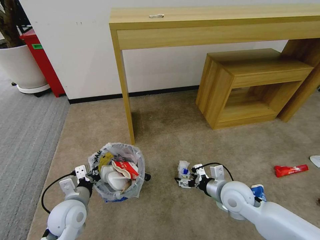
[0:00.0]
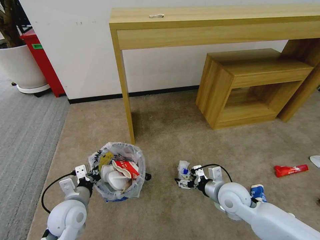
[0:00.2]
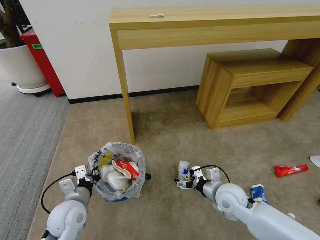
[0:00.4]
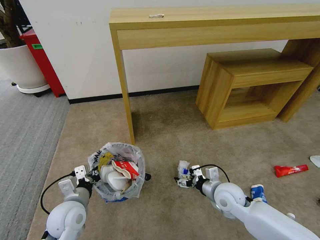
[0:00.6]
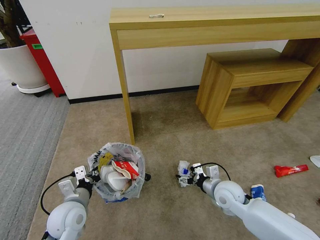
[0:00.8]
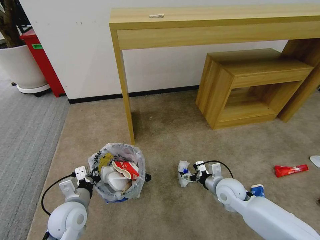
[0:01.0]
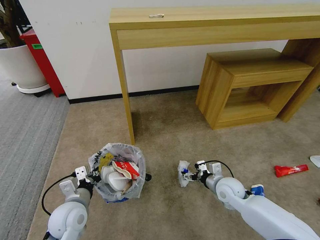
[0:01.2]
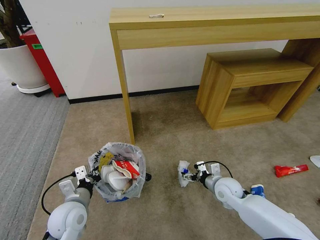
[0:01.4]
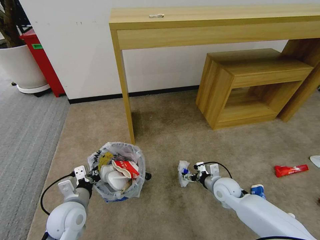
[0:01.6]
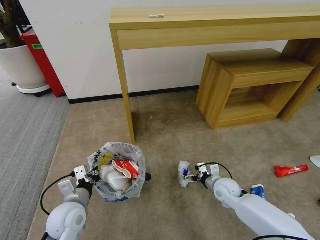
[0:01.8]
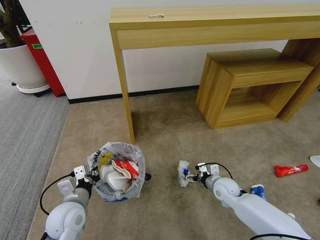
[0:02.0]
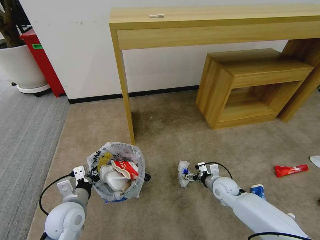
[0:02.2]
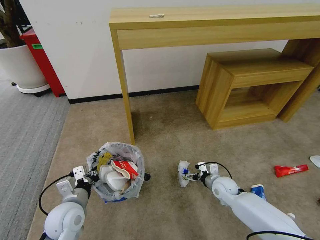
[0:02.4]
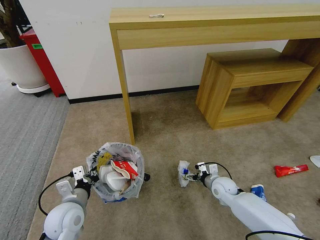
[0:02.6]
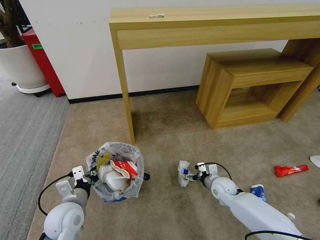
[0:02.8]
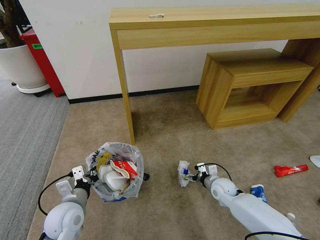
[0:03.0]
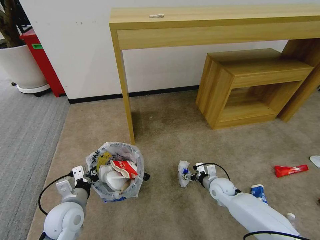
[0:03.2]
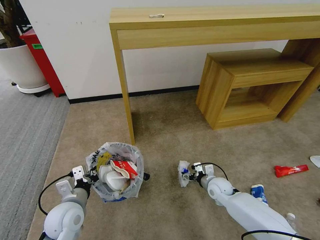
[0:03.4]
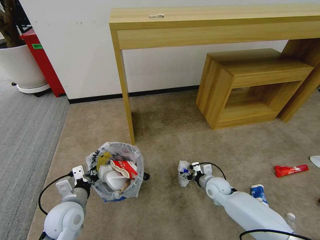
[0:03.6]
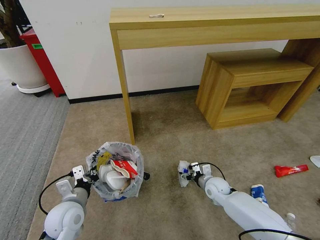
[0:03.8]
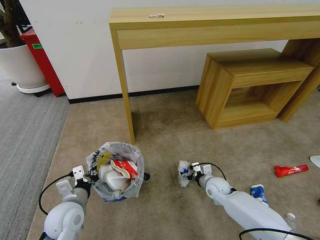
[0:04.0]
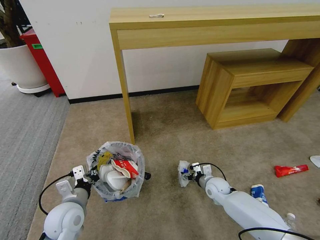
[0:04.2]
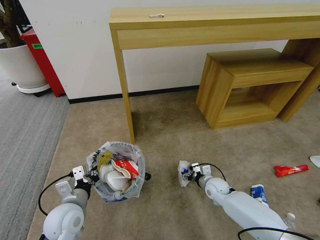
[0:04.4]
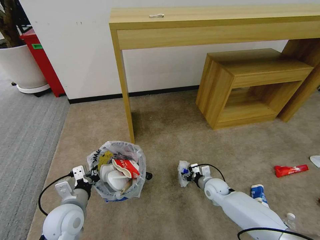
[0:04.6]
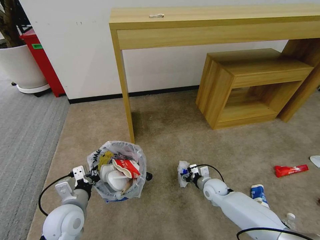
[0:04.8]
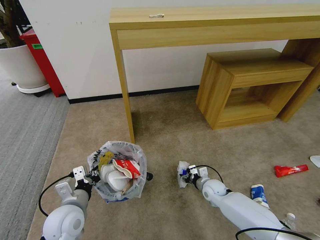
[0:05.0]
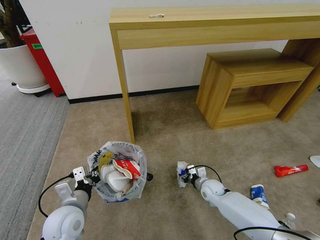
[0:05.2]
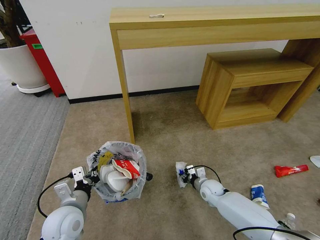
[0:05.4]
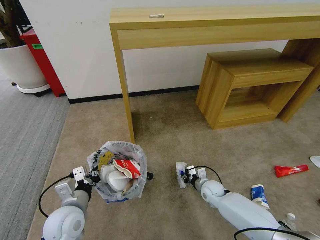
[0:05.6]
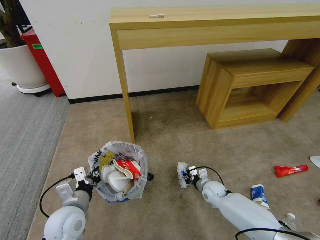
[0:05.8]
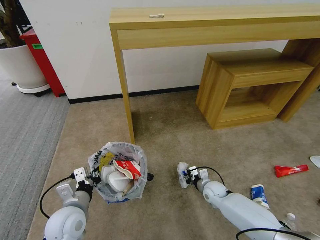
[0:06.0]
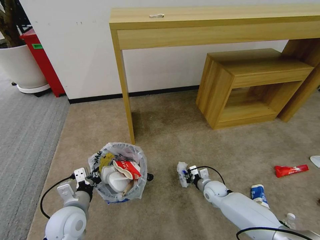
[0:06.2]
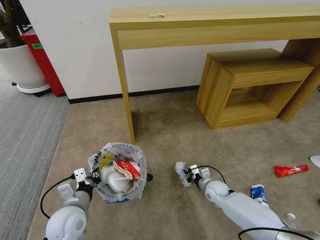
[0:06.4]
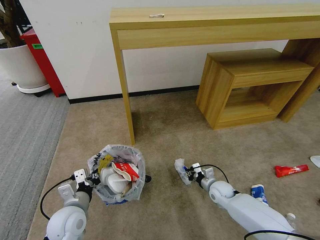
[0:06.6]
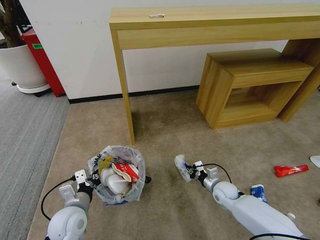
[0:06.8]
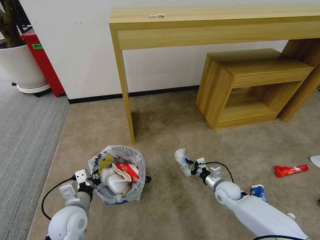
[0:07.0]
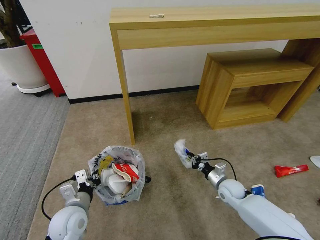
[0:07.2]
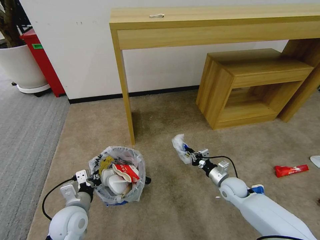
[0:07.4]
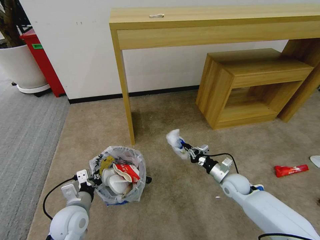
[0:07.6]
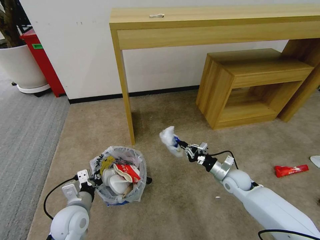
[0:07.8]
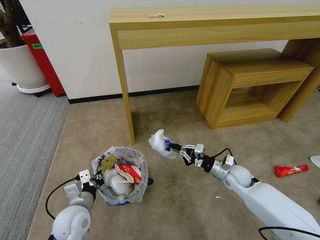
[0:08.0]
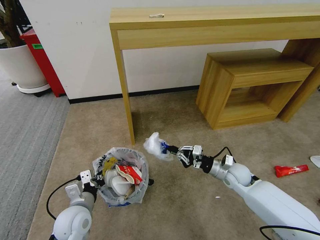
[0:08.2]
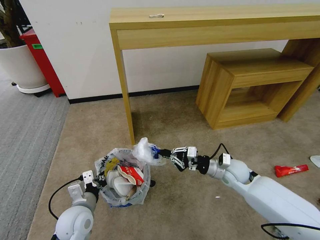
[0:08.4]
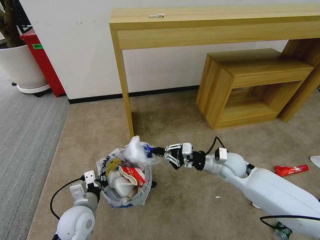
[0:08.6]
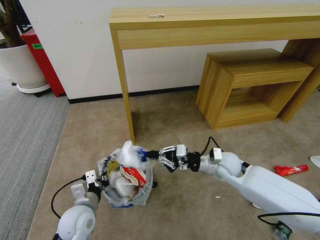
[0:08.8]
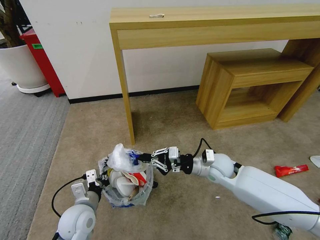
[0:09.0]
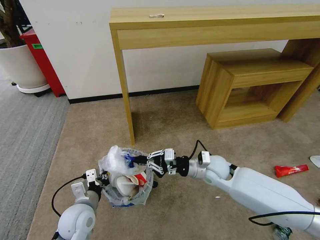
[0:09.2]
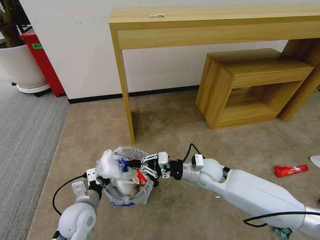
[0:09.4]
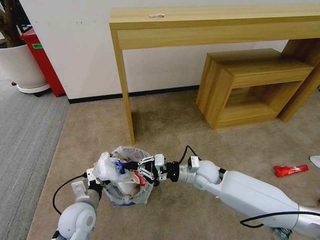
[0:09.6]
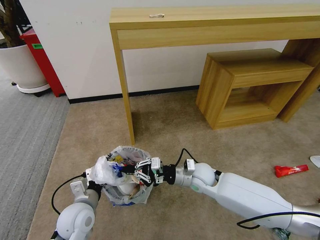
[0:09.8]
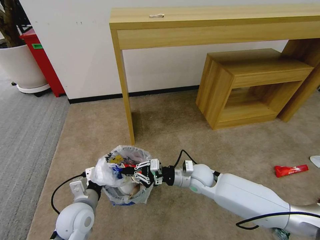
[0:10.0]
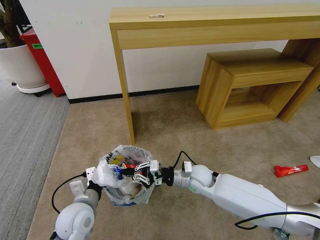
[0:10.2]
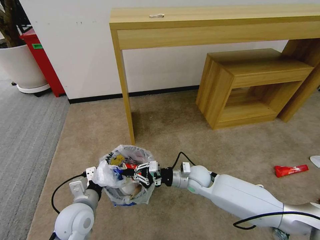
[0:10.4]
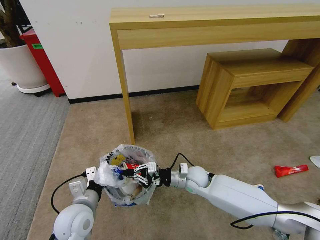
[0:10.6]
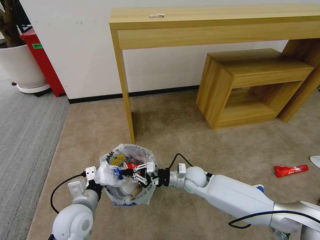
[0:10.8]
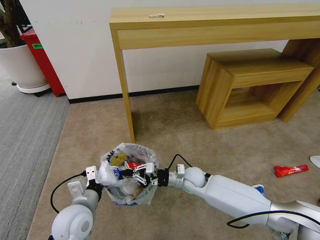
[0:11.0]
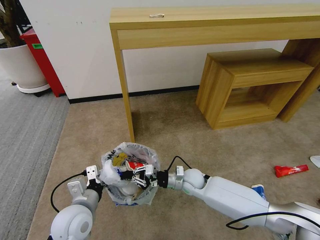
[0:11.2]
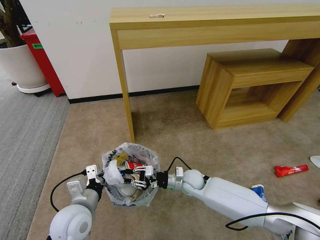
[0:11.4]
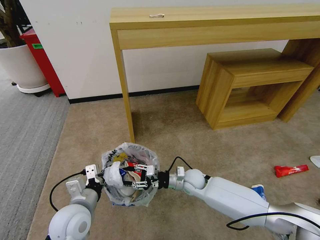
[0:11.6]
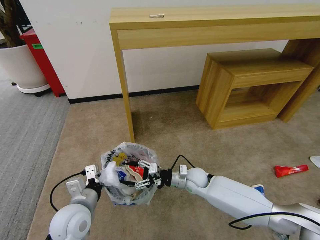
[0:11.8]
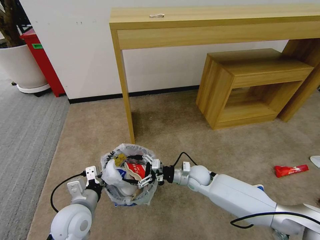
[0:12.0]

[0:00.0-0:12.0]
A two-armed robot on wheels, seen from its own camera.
Task of the whole recording: Pick up the trash bin and place the garbage on the floor into it.
0:00.0 to 0:01.6: The right gripper is displaced downward and forward by some 10 cm.
0:01.6 to 0:03.0: The grippers stay close to where they were, moving slightly.
0:03.0 to 0:04.4: The grippers make only small movements.
0:04.4 to 0:06.0: The right gripper closes up.
0:06.0 to 0:07.6: The right gripper shifts roughly 10 cm upward and to the right.
0:07.6 to 0:09.0: The right gripper heads upward and to the left, covering approximately 15 cm.
0:09.0 to 0:10.4: The right gripper travels downward and to the left by approximately 10 cm.
0:10.4 to 0:12.0: The right gripper opens up.

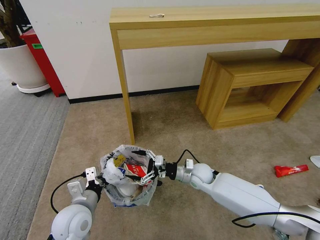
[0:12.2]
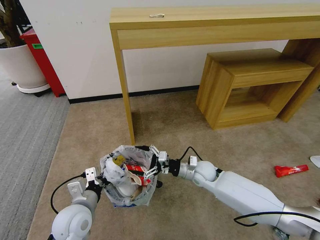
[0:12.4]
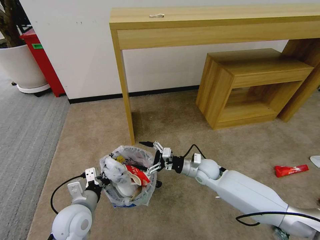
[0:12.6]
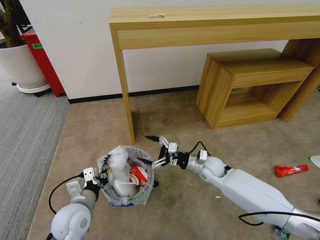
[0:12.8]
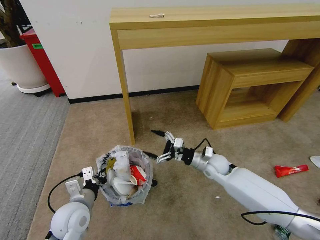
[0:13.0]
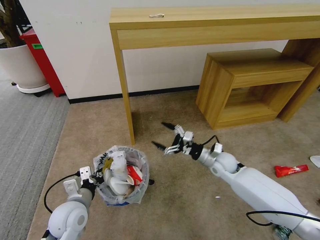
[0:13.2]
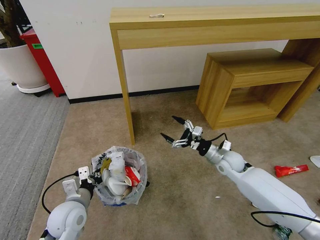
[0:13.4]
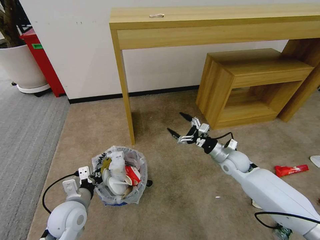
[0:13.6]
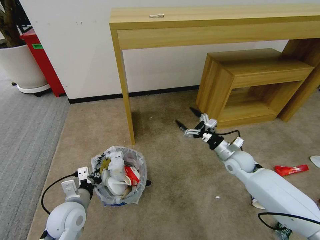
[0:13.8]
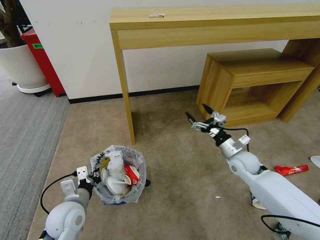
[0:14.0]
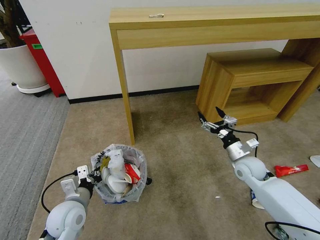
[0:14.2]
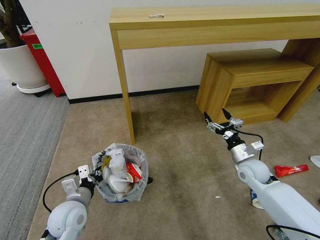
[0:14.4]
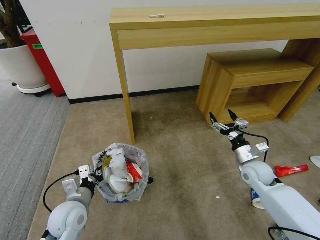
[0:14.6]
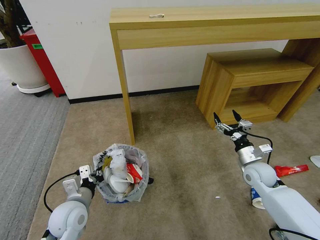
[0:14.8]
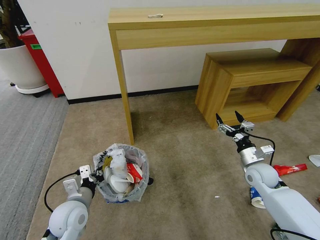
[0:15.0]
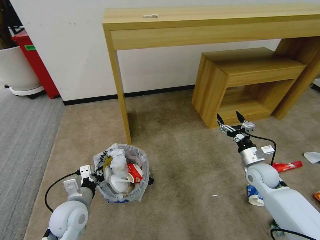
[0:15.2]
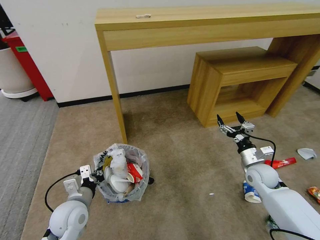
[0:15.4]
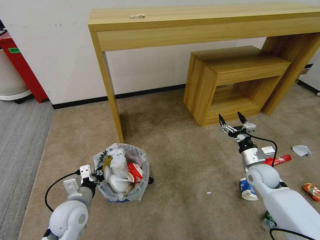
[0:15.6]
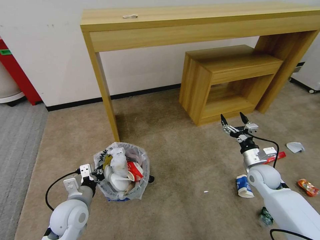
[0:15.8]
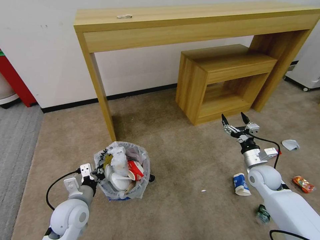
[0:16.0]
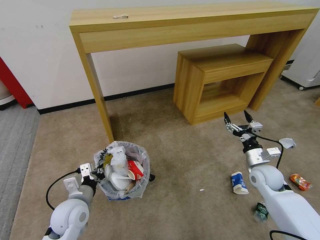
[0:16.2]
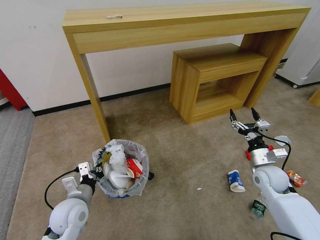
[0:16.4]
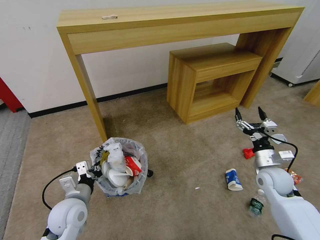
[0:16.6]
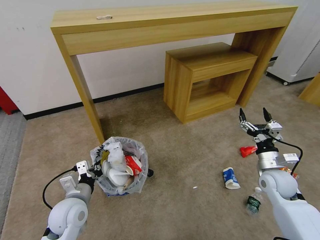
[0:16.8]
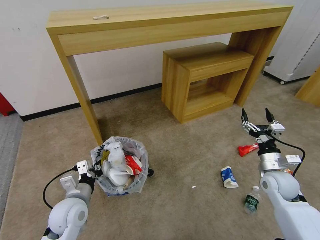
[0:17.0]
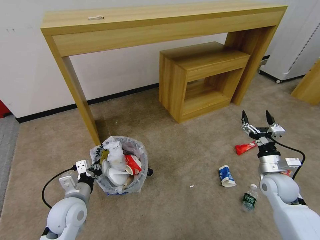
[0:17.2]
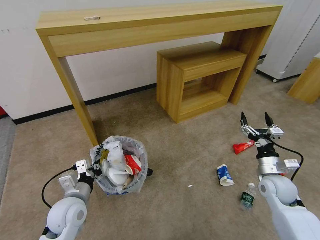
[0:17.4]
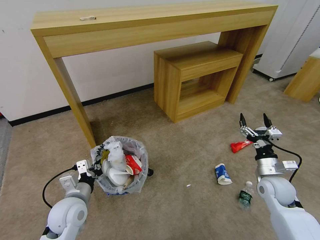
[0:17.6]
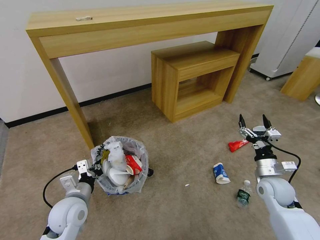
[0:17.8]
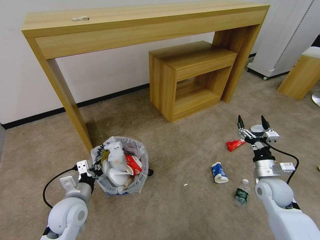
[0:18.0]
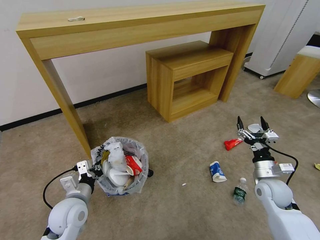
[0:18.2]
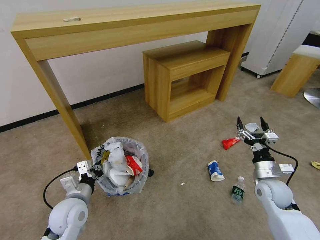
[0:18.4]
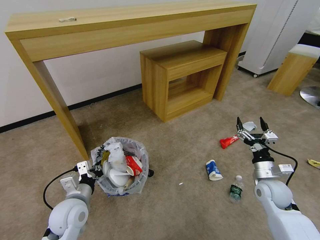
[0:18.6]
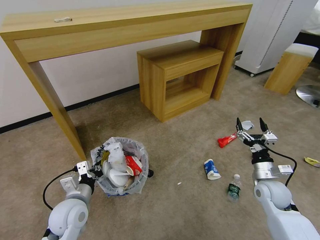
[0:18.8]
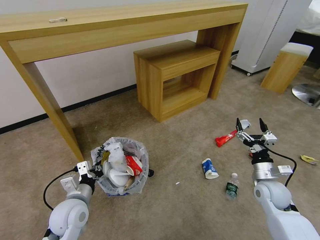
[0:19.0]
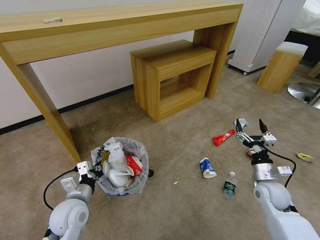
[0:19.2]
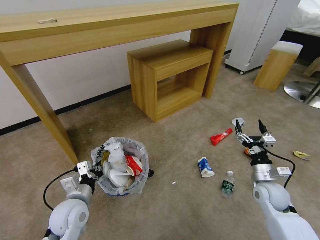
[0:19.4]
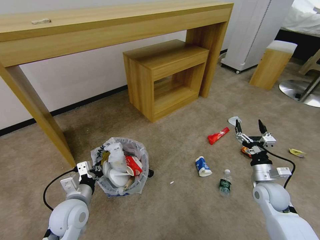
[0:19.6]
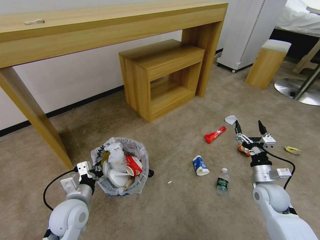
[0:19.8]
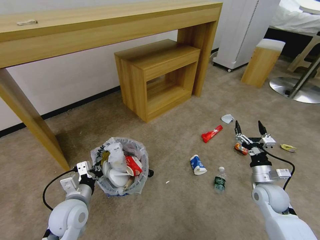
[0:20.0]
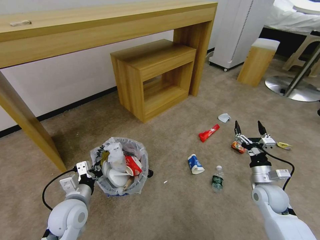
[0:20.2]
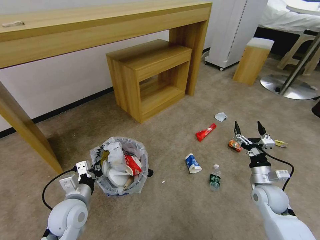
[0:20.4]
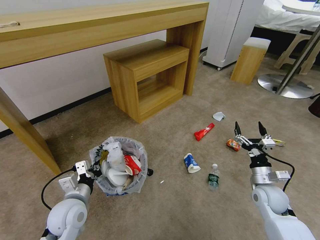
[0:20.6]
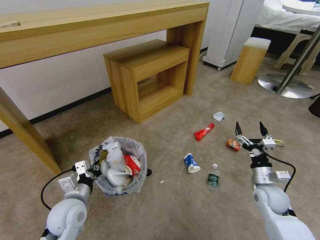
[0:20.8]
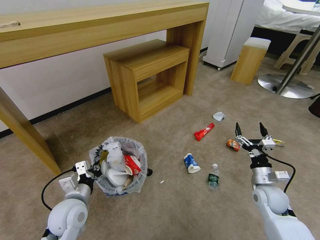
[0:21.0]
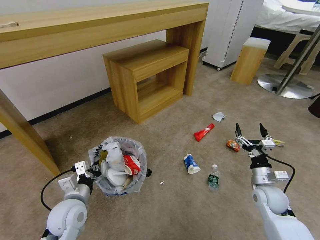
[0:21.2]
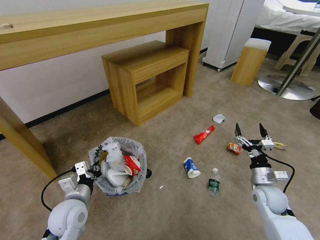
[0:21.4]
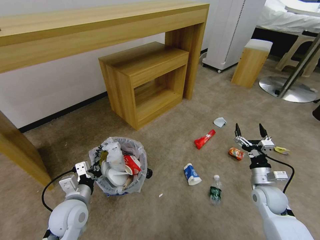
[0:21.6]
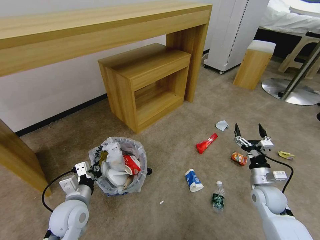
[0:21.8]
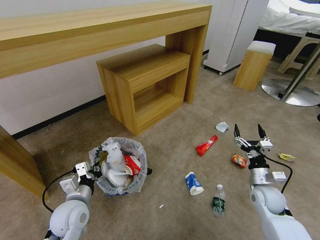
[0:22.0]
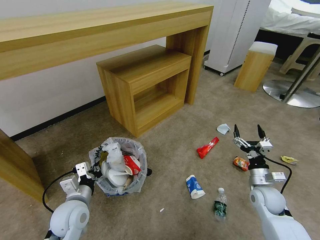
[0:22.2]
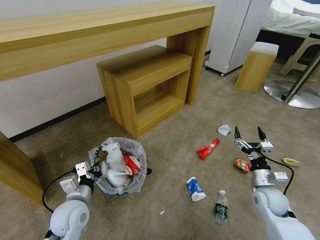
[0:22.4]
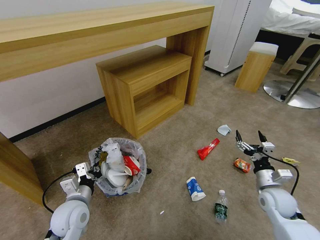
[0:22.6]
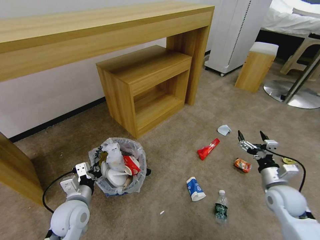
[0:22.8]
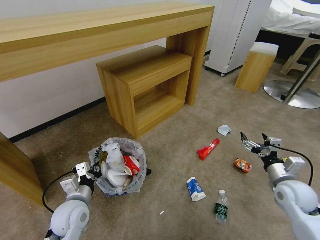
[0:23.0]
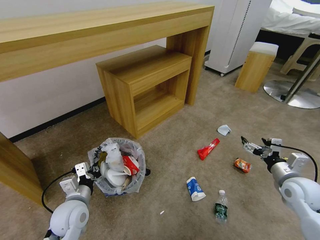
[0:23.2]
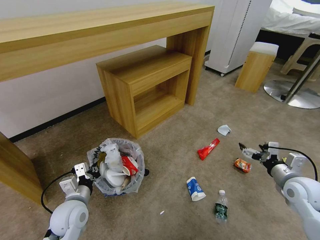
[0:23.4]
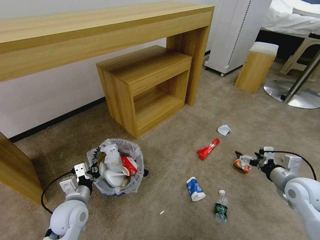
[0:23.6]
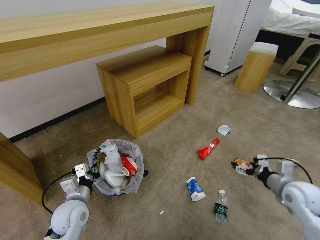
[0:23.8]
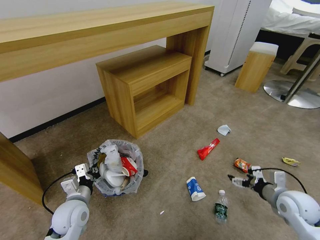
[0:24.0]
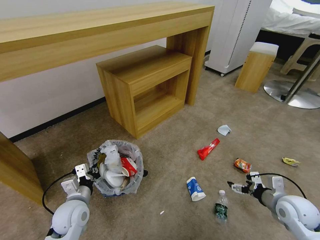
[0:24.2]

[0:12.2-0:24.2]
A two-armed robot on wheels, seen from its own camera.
Task of the whole recording: Pick up the trash bin and place the garbage on the floor into it.
0:12.2 to 0:13.8: The right gripper shifts approximately 15 cm to the right and upward.
0:13.8 to 0:15.2: The right gripper shifts about 5 cm to the right.
0:22.6 to 0:24.2: The right gripper goes upward and returns, some 10 cm each way.
